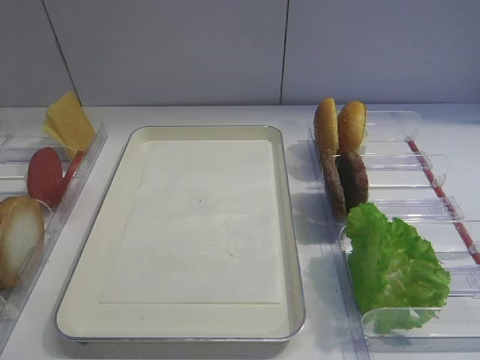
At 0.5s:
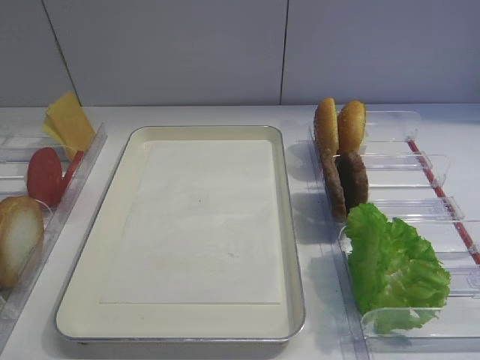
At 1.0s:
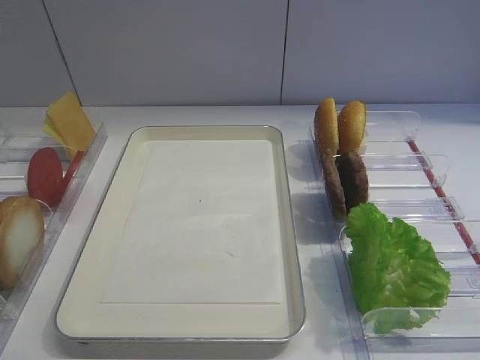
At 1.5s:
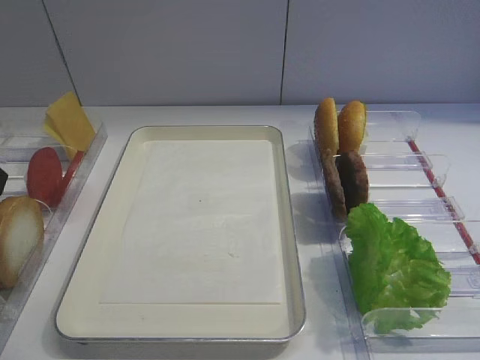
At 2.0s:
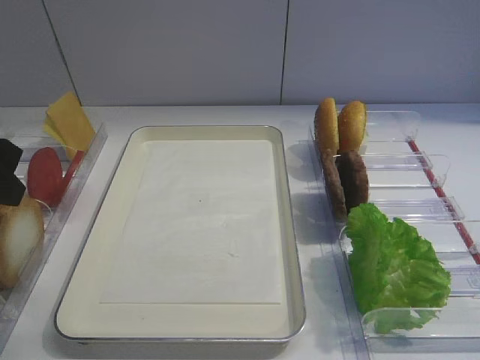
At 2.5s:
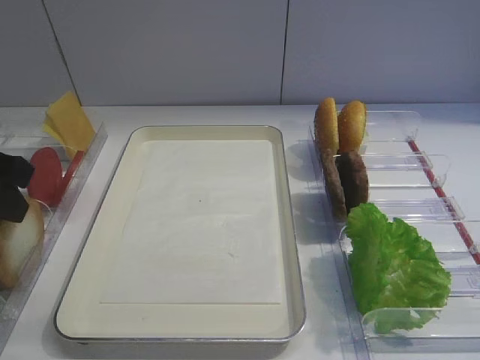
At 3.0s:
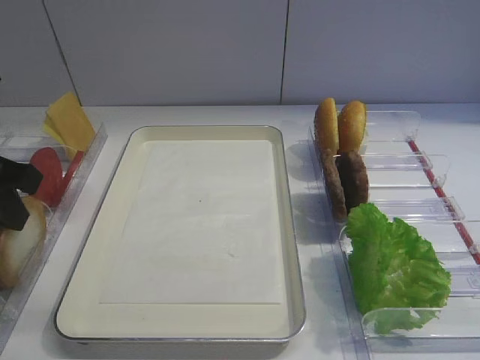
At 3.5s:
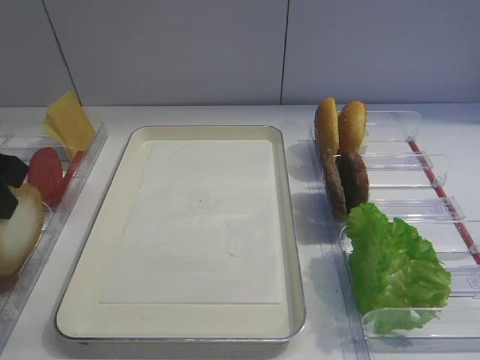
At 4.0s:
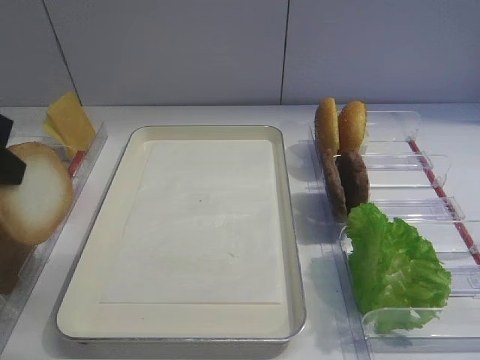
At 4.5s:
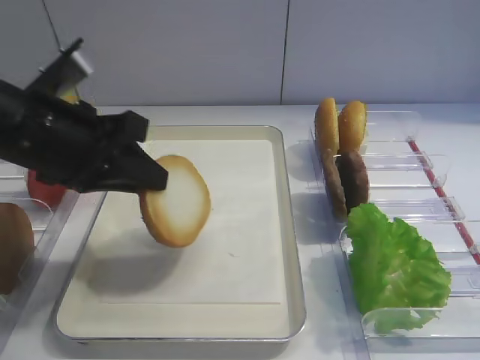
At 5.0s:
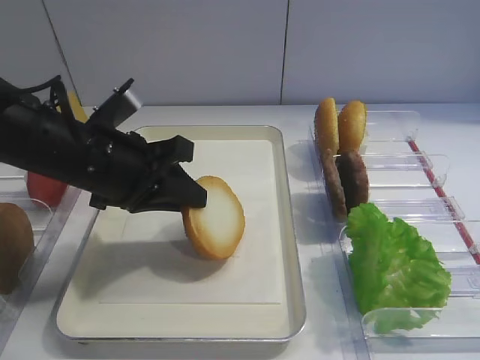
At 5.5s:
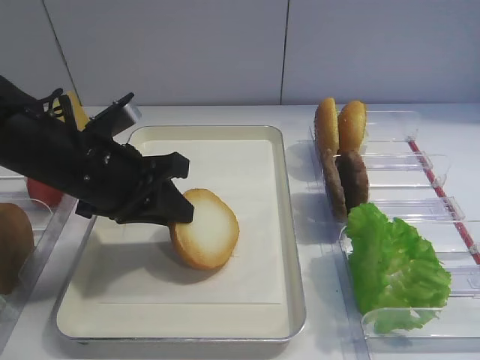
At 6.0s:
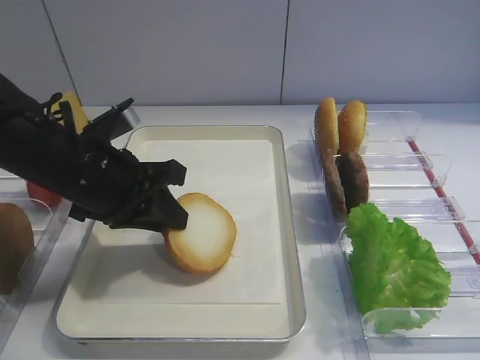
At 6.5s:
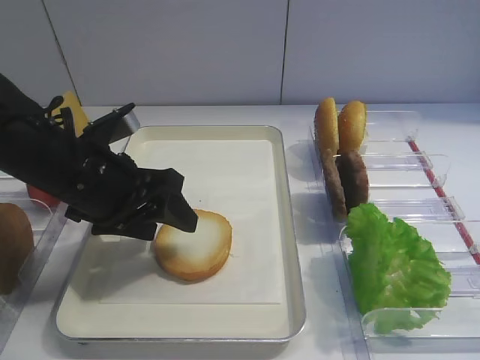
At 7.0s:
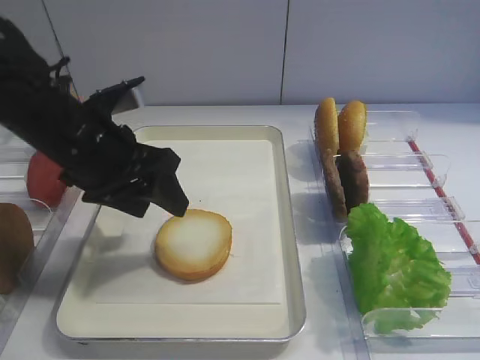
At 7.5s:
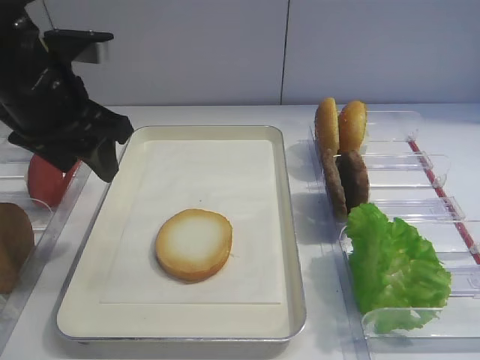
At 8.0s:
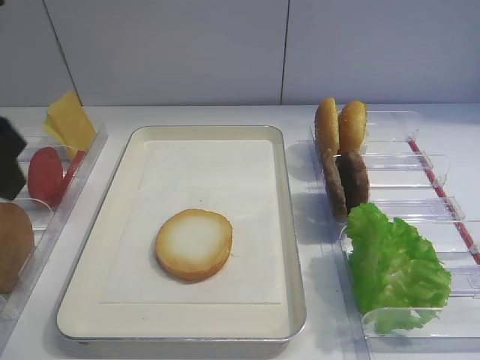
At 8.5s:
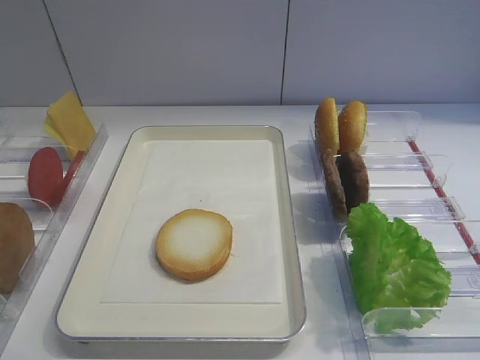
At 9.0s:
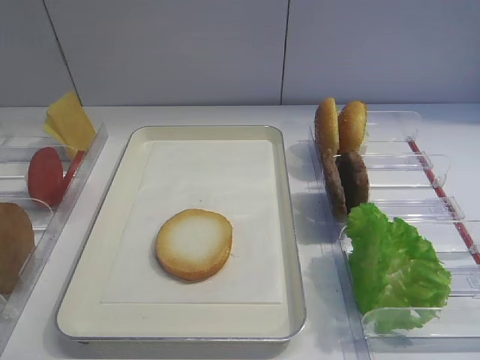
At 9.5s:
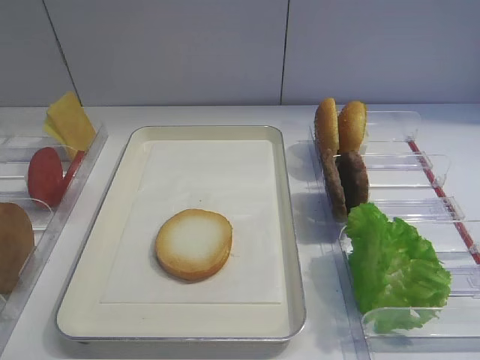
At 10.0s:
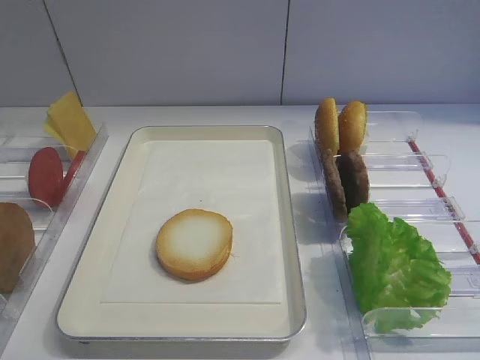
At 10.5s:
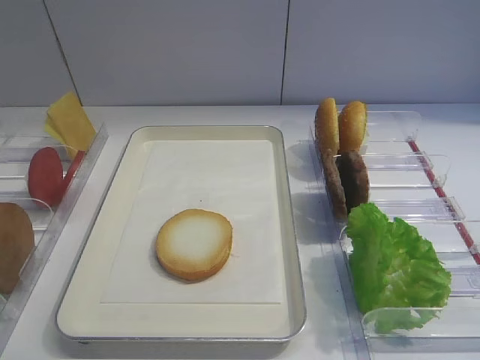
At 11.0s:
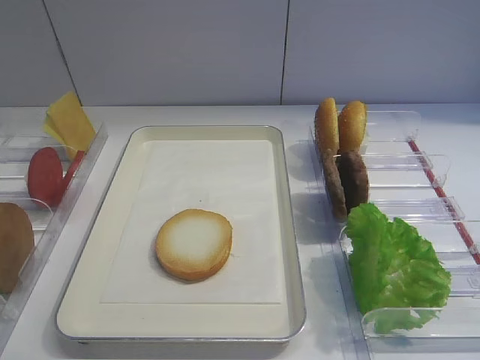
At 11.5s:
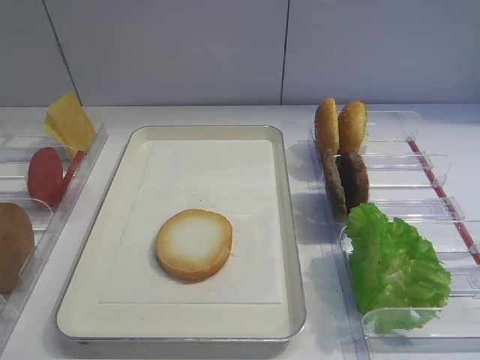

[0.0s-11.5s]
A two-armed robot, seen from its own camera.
Step, 0.0s to 3.5s: Pick up the bread slice with the left gripper.
Step, 4.0s to 7.0s: Place the bread slice on the tray with the left gripper.
2.0s to 4.0s: The left gripper closes its fingers.
4.0s to 6.0s: The left gripper goes about 15 cm downward, to the right and forward.
6.0s to 7.5s: The left gripper shifts about 10 cm upward, and opens.
7.5s to 9.5s: The left gripper heads backward, covering approximately 30 cm.

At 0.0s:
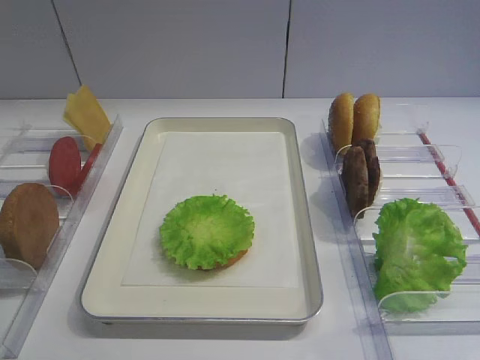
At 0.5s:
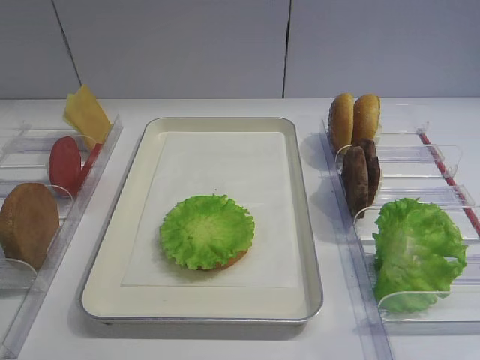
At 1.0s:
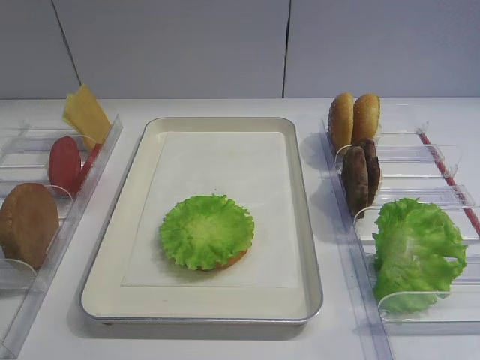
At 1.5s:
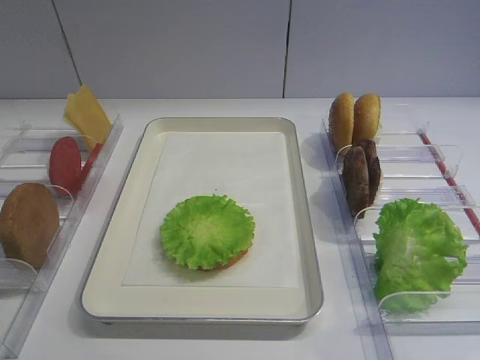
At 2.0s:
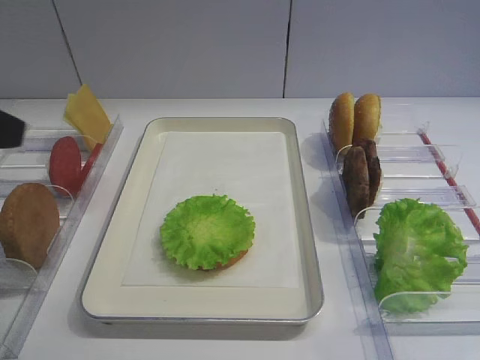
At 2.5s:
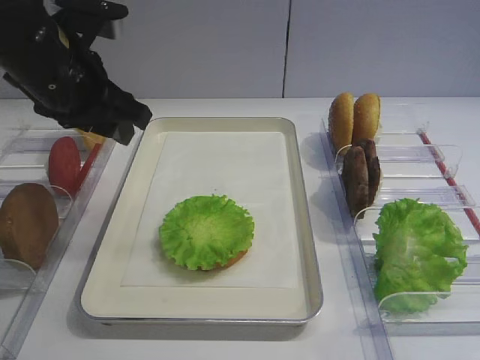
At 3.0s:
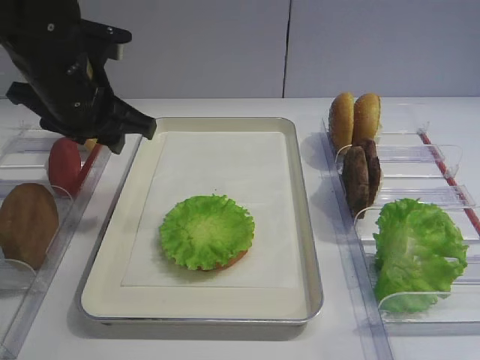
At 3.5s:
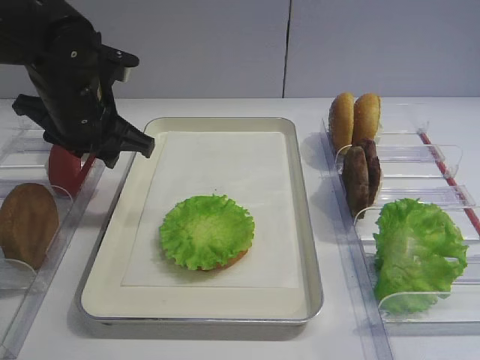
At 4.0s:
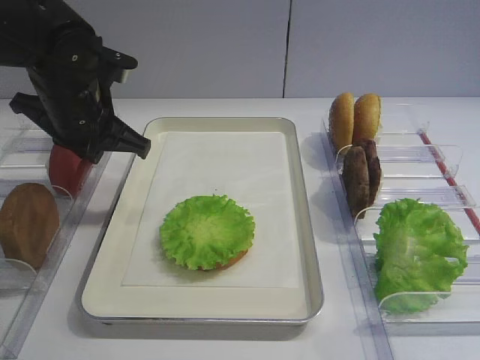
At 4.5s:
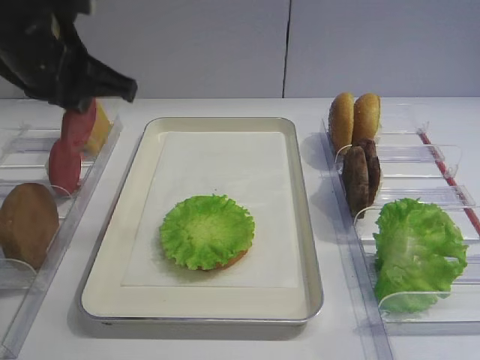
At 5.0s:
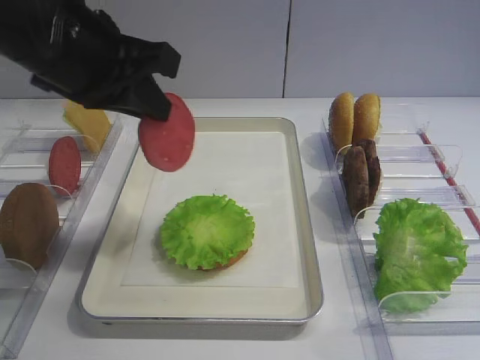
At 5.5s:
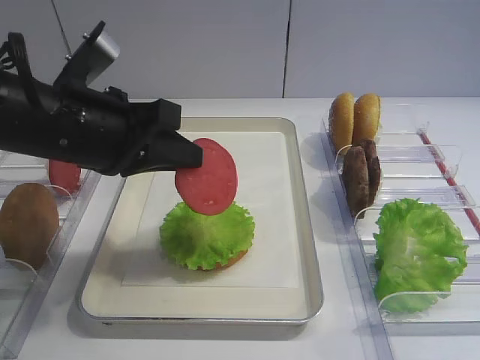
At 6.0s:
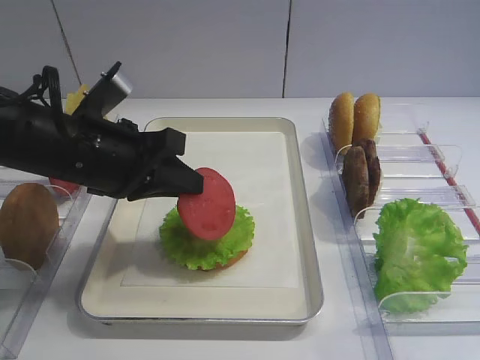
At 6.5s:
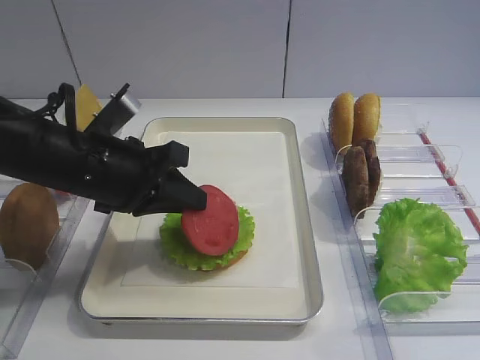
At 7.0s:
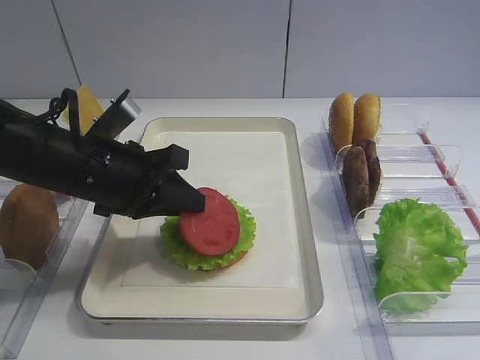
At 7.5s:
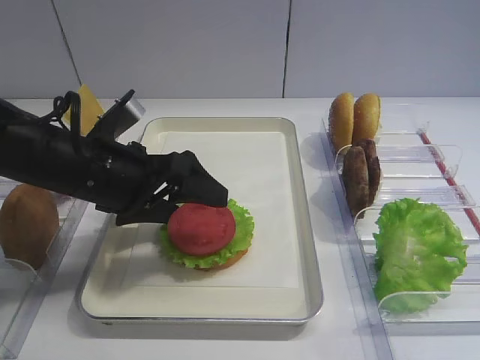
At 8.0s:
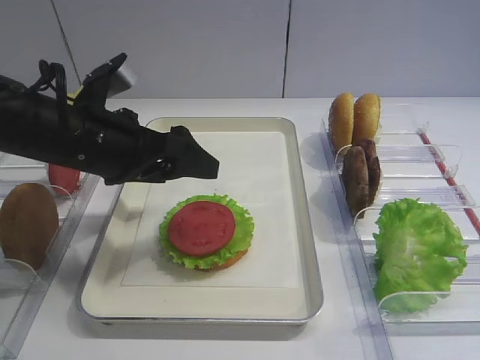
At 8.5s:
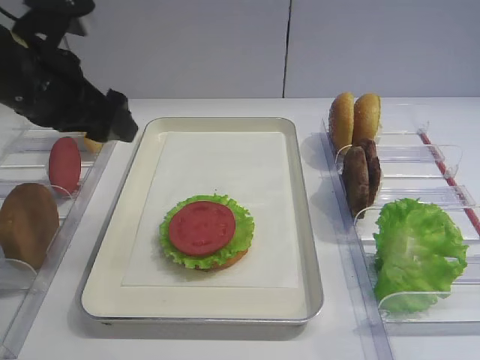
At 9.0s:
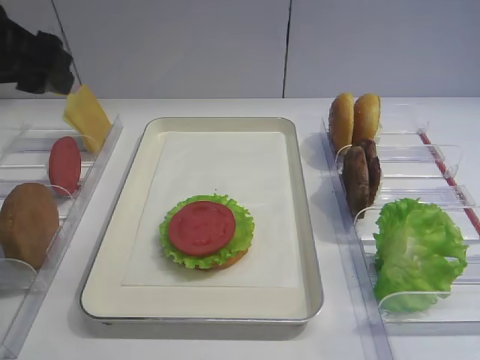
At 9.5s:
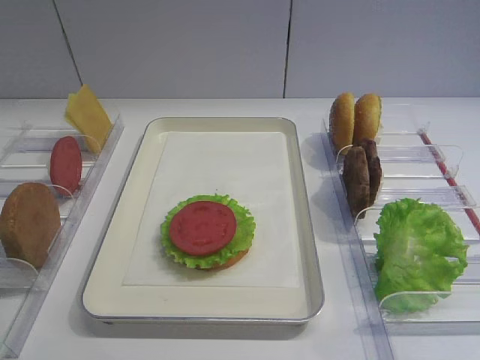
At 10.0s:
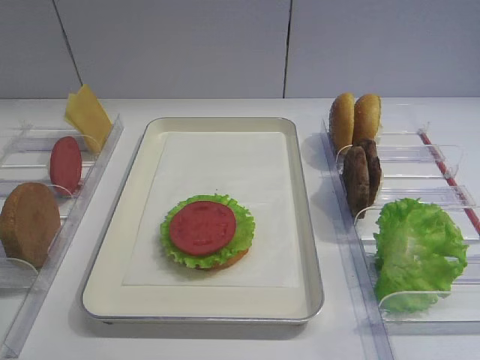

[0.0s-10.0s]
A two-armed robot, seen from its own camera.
Step, 0.0s to 4.5s: Pick up the tomato slice with the left gripper.
Step, 5.0s to 7.5s: Place the tomato slice on the lettuce leaf with the left gripper.
2.0s to 4.0s: The left gripper travels forward, downward and to the right by some 25 cm, and closes its fingers.
4.0s to 6.0s: The left gripper goes about 10 cm backward, and moves approximately 10 cm upward and comes back.
6.0s to 8.0s: The left gripper opens its fingers.
8.0s to 10.0s: The left gripper is displaced backward and to the left by roughly 30 cm.

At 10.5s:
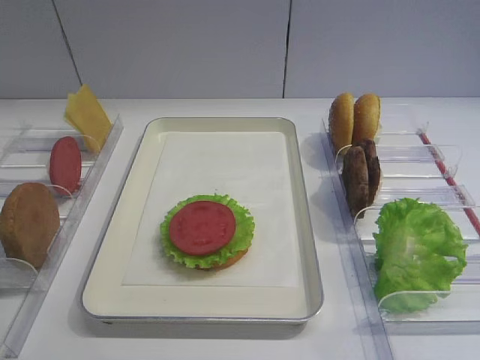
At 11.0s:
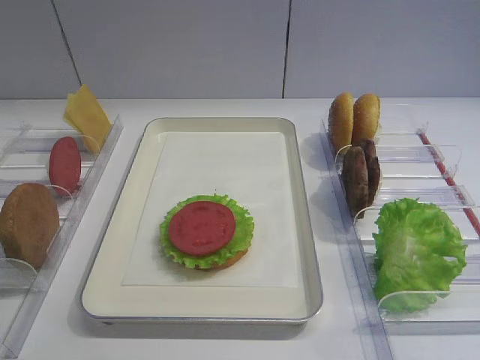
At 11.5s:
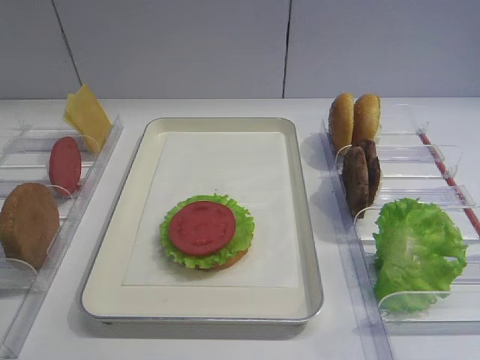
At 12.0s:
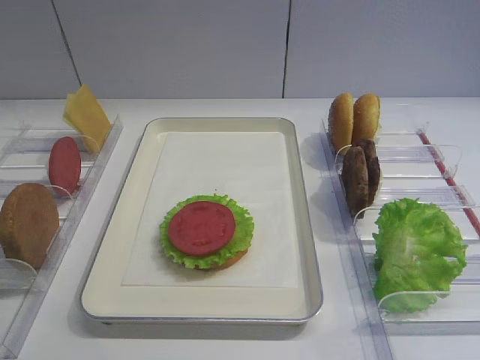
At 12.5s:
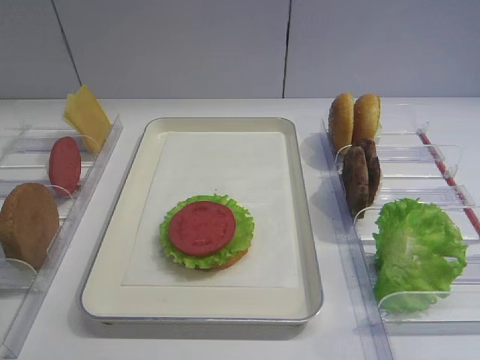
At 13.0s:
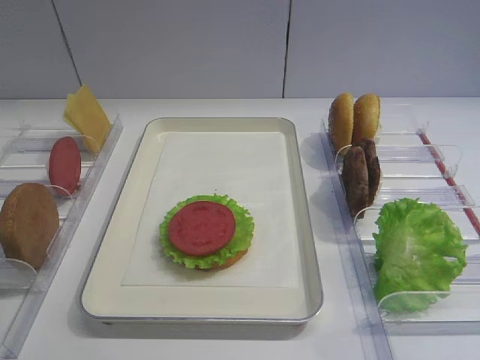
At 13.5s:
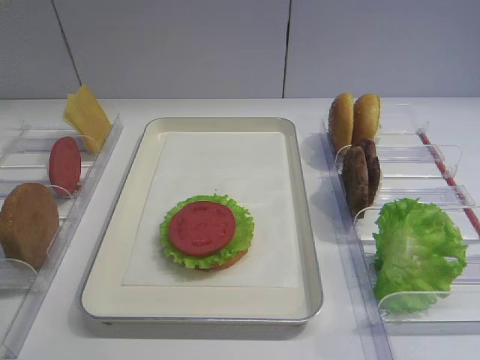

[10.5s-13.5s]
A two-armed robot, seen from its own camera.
12.0s to 13.5s: The two grippers keep their place.

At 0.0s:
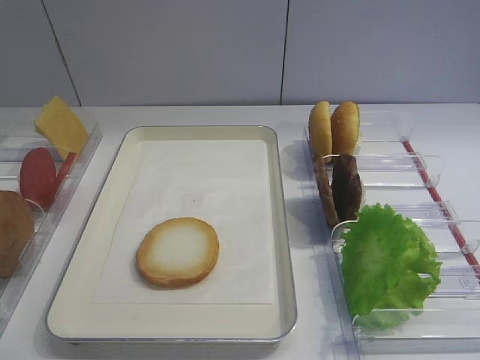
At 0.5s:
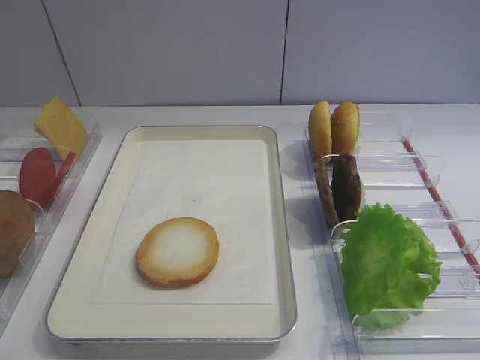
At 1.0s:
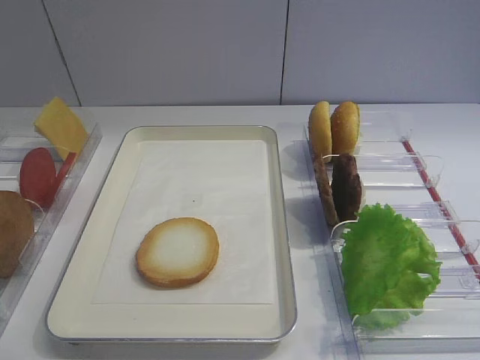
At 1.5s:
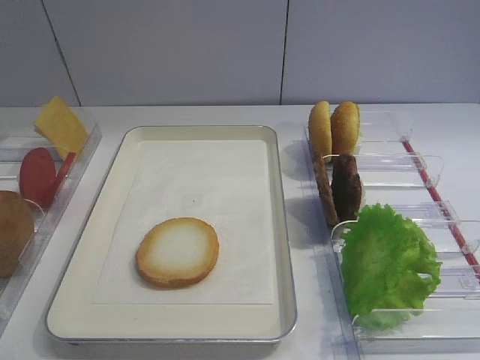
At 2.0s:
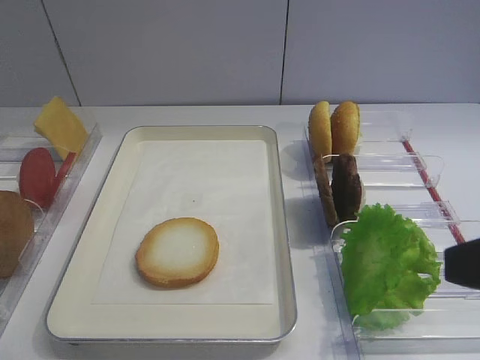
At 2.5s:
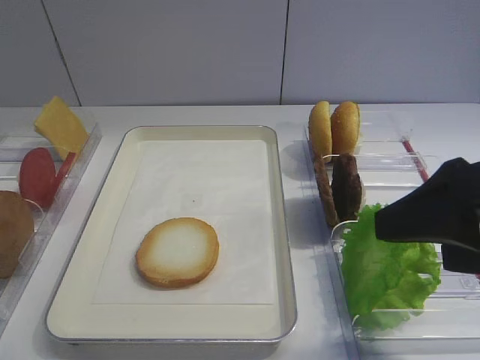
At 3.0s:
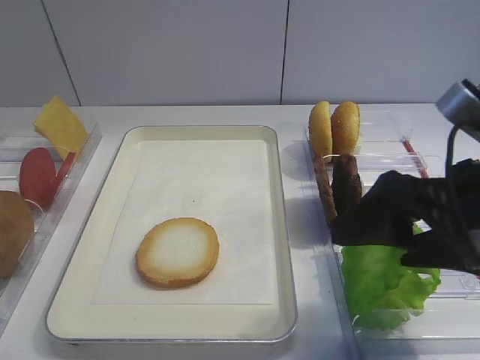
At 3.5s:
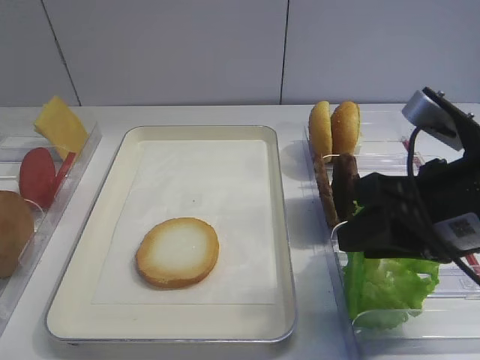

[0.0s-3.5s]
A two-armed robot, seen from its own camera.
2.0s to 3.5s: The right gripper travels forward by about 10 cm, and closes its fingers.
